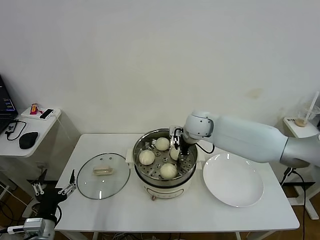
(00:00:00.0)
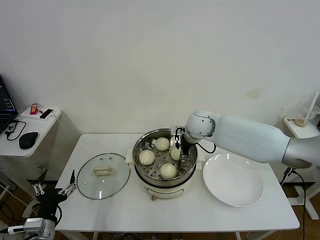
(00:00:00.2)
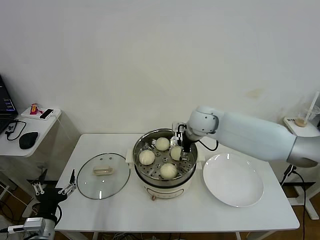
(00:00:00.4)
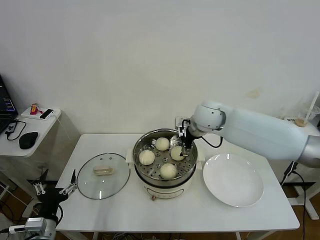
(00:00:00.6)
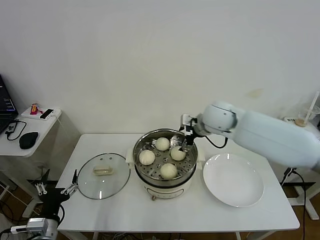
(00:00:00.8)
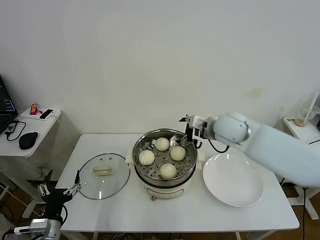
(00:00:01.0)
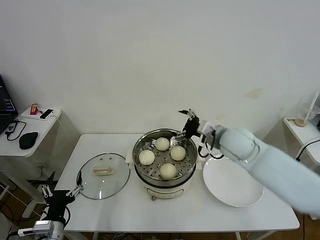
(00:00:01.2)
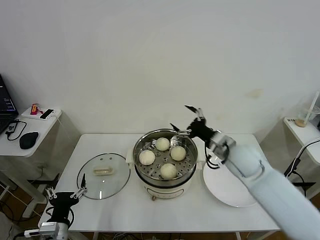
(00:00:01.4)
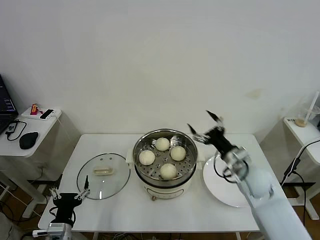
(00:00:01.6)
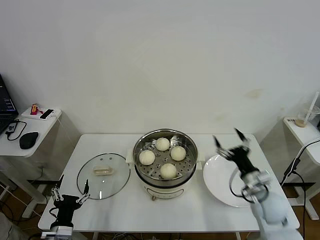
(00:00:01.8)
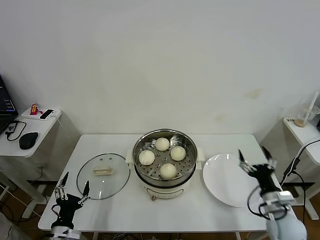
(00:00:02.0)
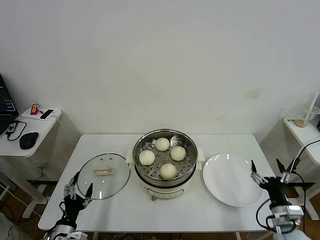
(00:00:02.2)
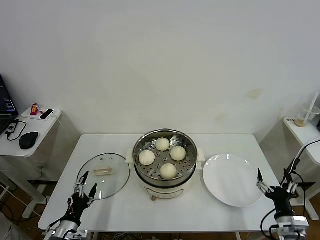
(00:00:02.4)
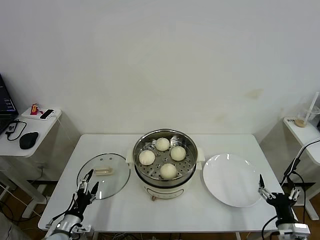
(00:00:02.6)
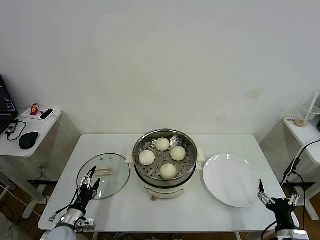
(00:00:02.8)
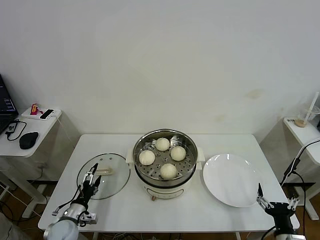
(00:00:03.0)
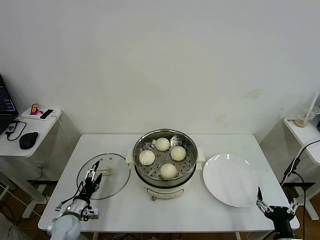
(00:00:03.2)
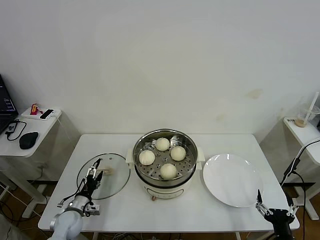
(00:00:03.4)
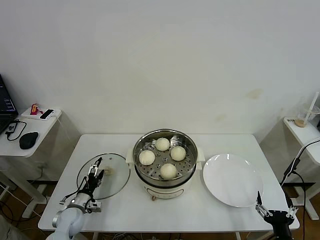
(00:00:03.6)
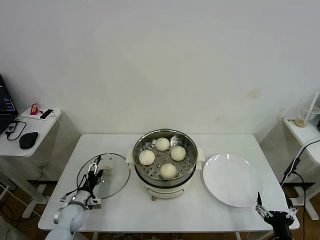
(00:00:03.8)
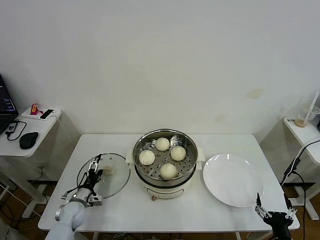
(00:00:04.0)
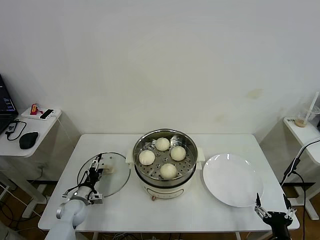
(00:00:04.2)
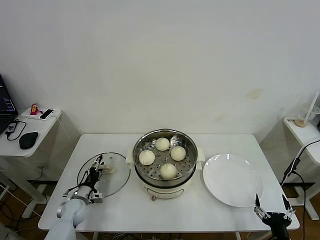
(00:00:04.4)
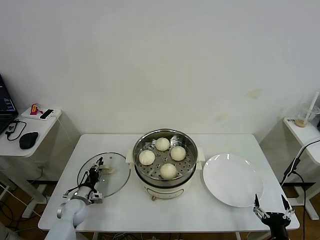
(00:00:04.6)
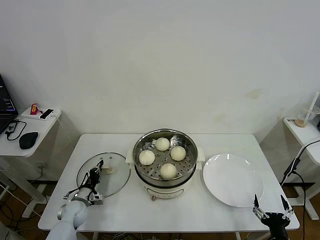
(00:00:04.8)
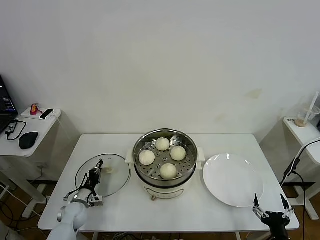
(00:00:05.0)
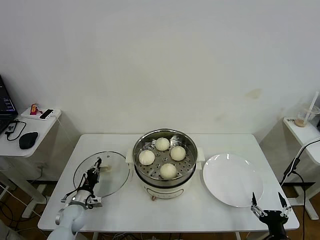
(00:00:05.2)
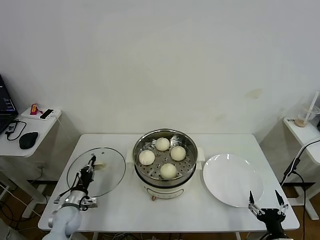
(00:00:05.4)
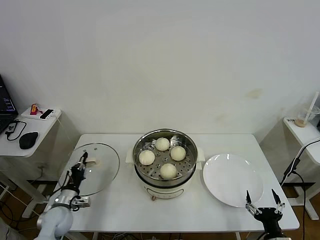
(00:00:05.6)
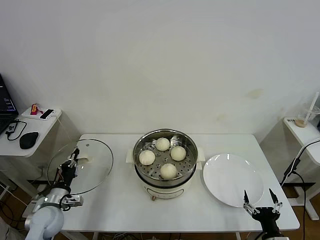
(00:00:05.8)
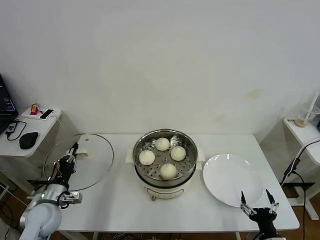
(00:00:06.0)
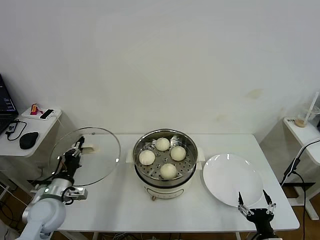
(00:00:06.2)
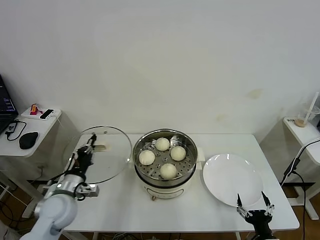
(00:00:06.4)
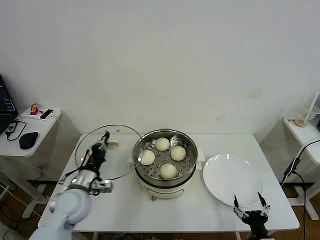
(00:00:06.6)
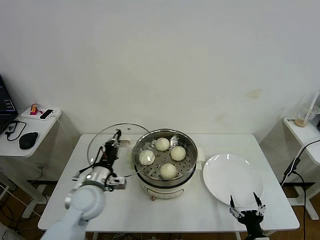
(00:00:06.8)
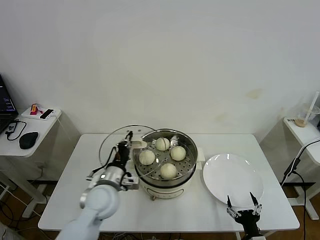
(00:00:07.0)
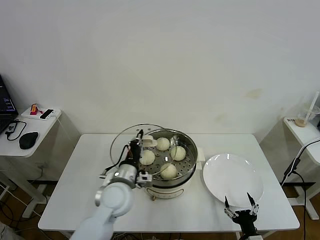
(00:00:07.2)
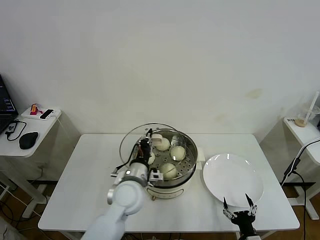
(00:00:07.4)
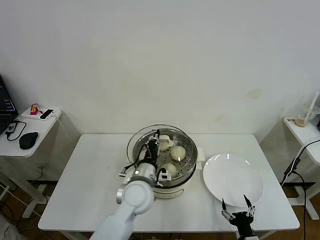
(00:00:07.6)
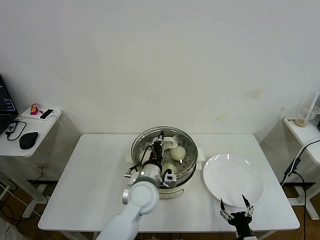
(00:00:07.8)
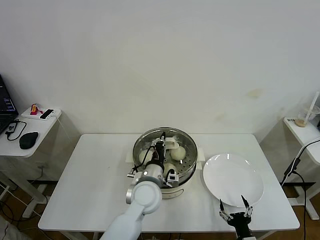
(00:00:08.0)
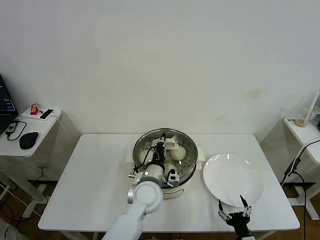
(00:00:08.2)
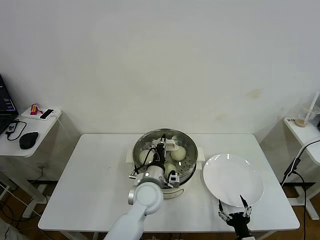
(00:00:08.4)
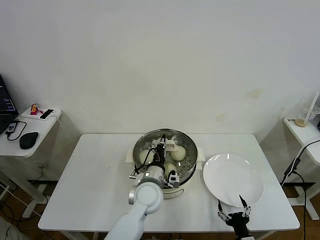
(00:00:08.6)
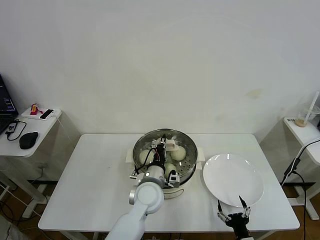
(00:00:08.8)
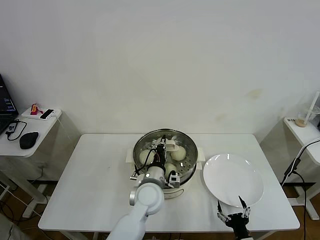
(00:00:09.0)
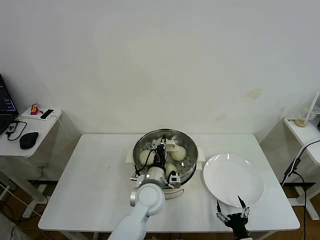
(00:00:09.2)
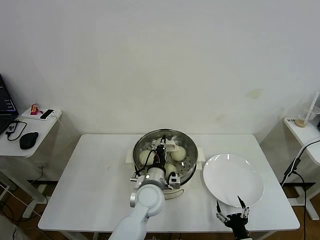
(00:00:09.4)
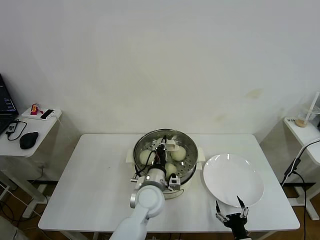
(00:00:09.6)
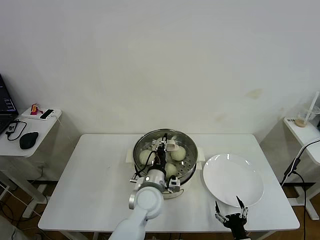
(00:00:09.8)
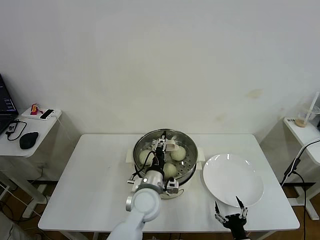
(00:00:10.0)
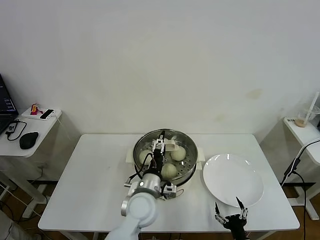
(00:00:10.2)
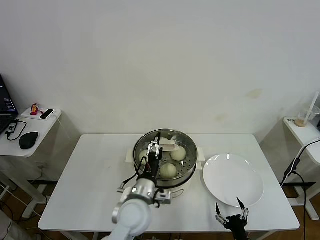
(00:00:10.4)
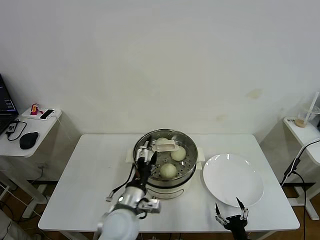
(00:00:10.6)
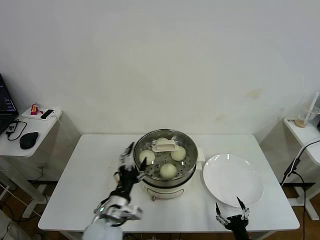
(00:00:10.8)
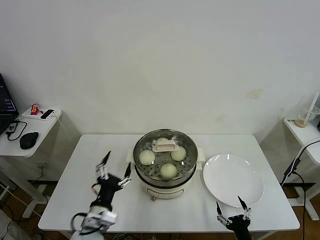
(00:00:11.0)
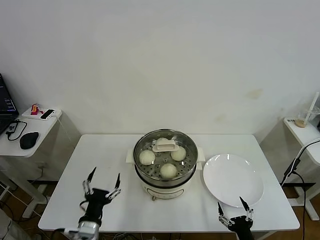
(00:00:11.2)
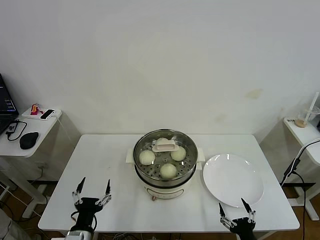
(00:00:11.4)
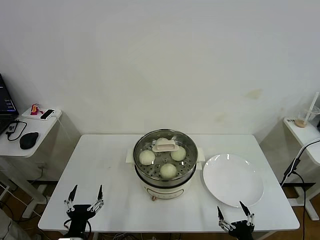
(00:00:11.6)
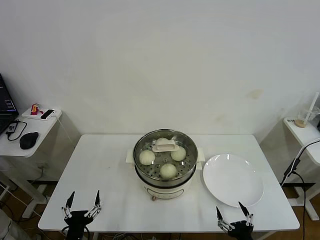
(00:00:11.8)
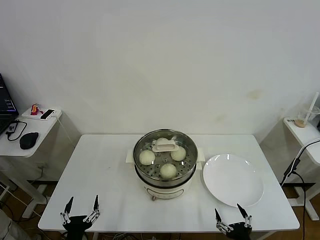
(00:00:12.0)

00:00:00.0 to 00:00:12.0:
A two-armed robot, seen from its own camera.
Task of the whole recording: take steamed baozi put them in steamer then cover it.
Step, 00:00:00.8 to 00:00:04.8: Grasp the pot lid with left gripper.
Step, 00:00:05.2 to 00:00:10.6: Place the pot lid on the steamer with left gripper.
00:00:00.0 to 00:00:01.6: The left gripper changes place by some 5 cm. Meanwhile the right gripper goes approximately 25 cm backward, to the right and downward, and opens.
00:00:01.6 to 00:00:03.0: The right gripper shifts about 25 cm backward and downward. The left gripper travels forward and downward by approximately 10 cm.
00:00:03.0 to 00:00:04.4: The left gripper moves forward, some 10 cm.
00:00:04.4 to 00:00:06.0: The left gripper heads upward and backward, covering approximately 15 cm, and closes up.
00:00:06.0 to 00:00:07.6: The right gripper moves downward, approximately 5 cm. The left gripper is displaced to the right by approximately 30 cm.
00:00:07.6 to 00:00:09.0: The left gripper moves approximately 5 cm.
00:00:09.0 to 00:00:10.4: The left gripper heads backward, covering some 5 cm, and opens up.
00:00:10.4 to 00:00:12.0: The right gripper heads upward, covering approximately 5 cm. Meanwhile the left gripper moves to the left, backward and downward, some 30 cm.
